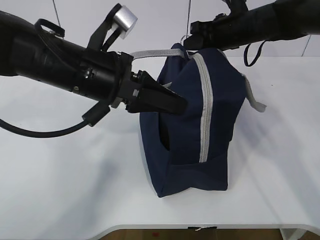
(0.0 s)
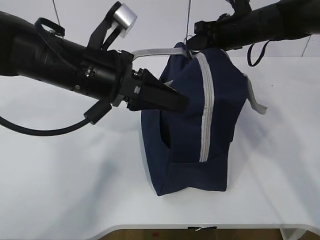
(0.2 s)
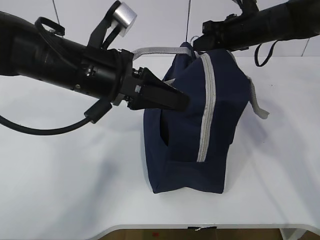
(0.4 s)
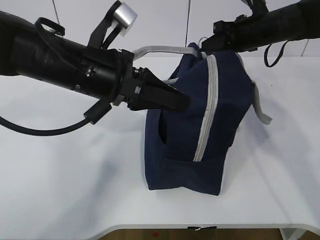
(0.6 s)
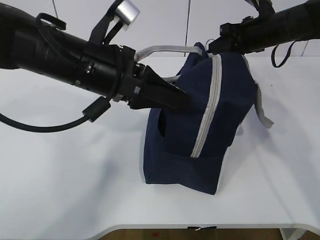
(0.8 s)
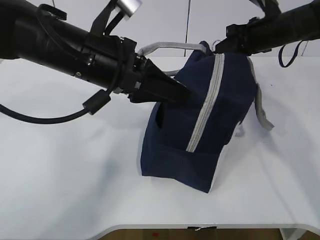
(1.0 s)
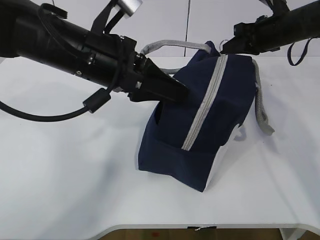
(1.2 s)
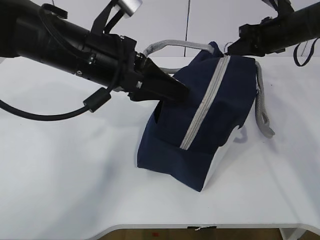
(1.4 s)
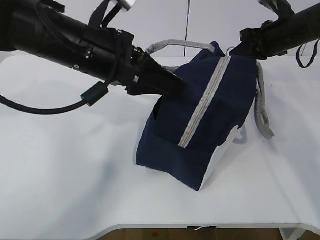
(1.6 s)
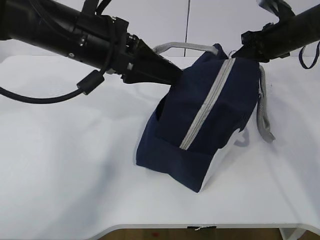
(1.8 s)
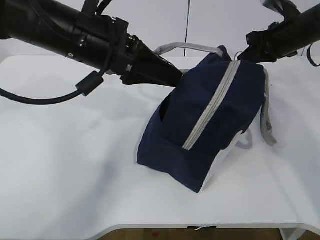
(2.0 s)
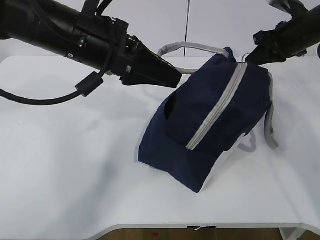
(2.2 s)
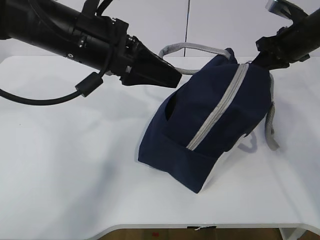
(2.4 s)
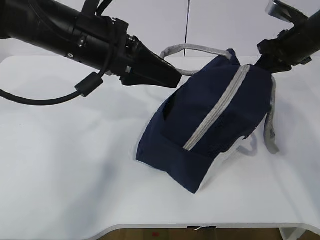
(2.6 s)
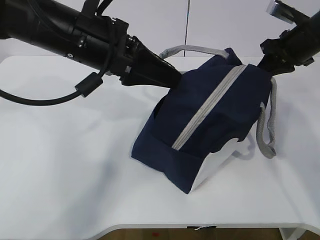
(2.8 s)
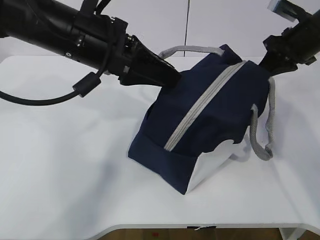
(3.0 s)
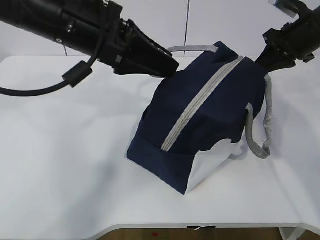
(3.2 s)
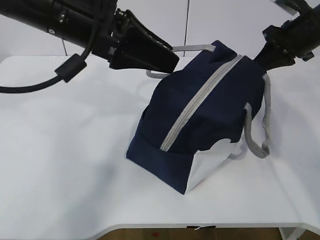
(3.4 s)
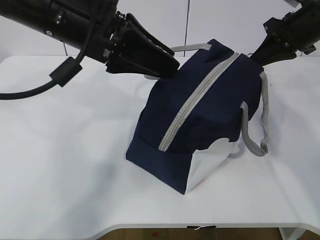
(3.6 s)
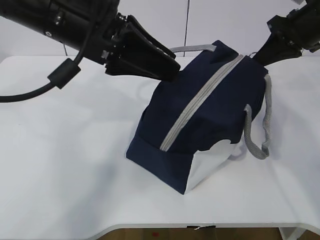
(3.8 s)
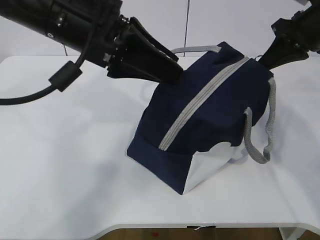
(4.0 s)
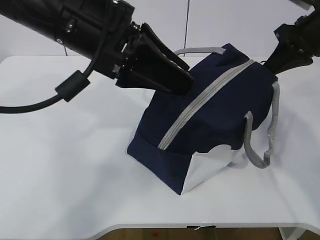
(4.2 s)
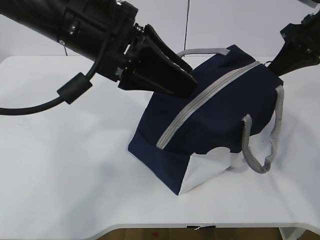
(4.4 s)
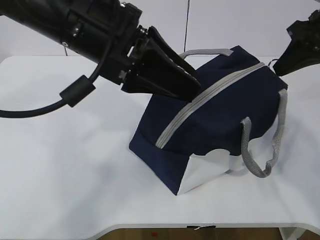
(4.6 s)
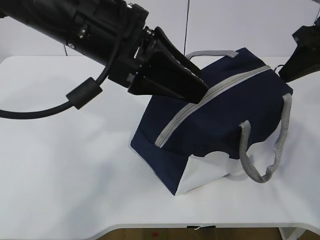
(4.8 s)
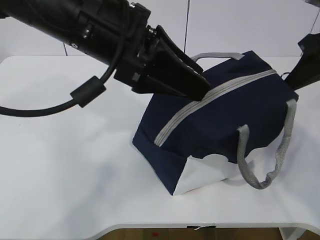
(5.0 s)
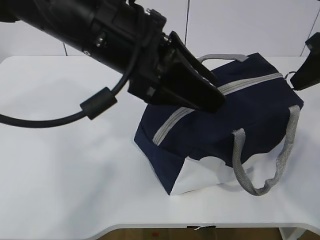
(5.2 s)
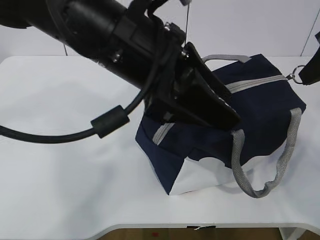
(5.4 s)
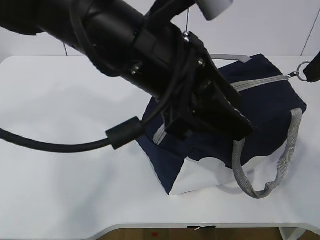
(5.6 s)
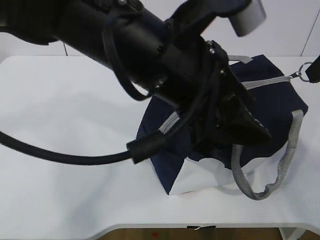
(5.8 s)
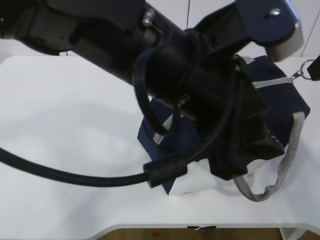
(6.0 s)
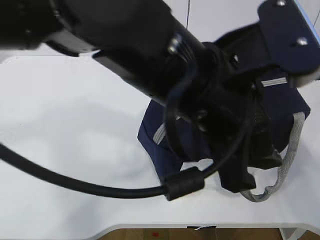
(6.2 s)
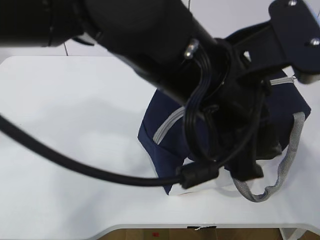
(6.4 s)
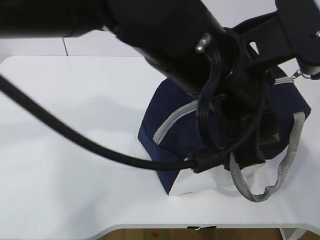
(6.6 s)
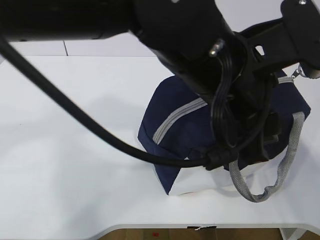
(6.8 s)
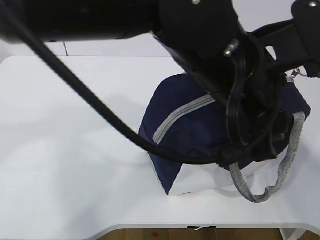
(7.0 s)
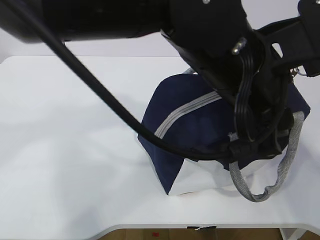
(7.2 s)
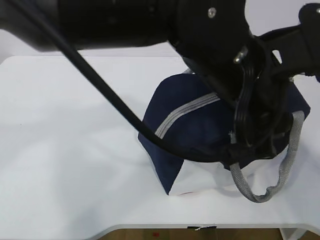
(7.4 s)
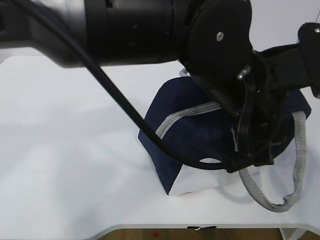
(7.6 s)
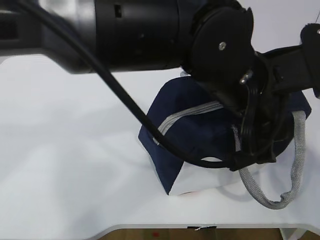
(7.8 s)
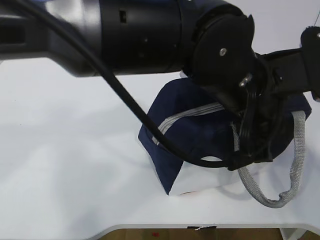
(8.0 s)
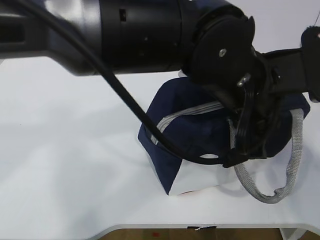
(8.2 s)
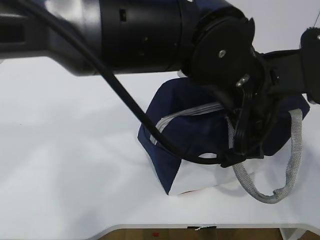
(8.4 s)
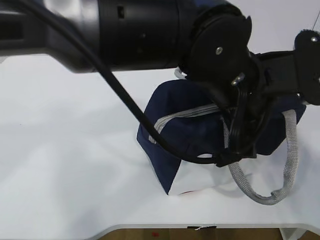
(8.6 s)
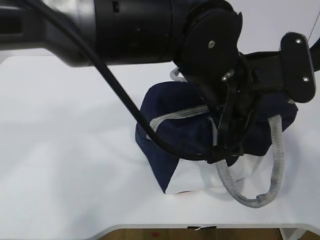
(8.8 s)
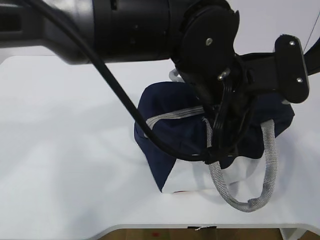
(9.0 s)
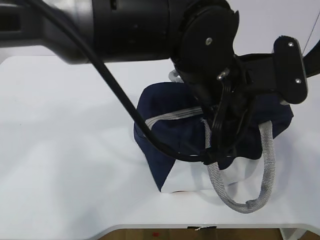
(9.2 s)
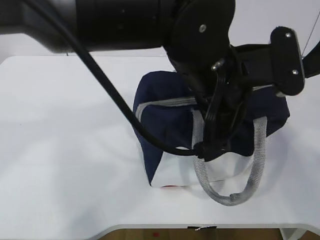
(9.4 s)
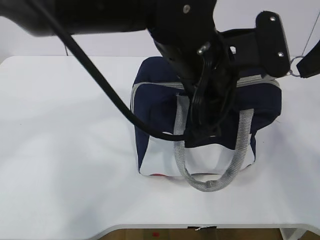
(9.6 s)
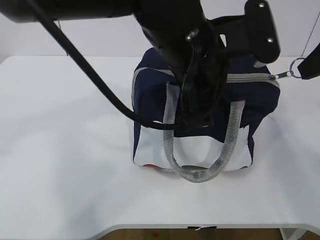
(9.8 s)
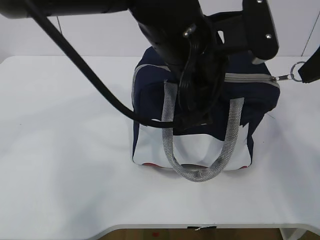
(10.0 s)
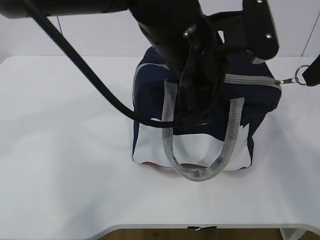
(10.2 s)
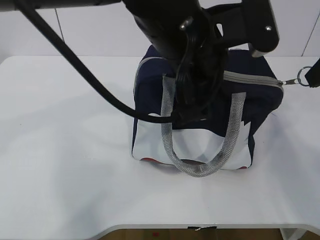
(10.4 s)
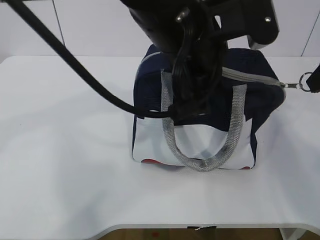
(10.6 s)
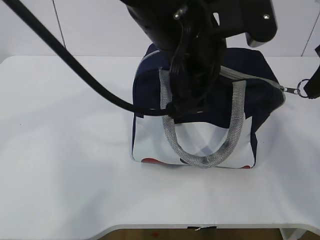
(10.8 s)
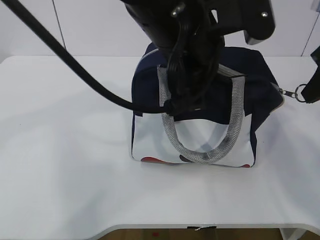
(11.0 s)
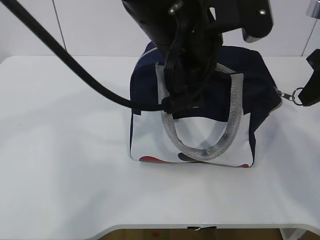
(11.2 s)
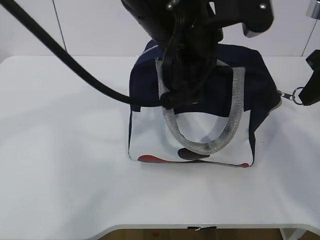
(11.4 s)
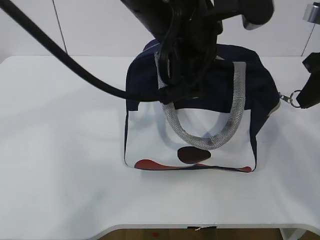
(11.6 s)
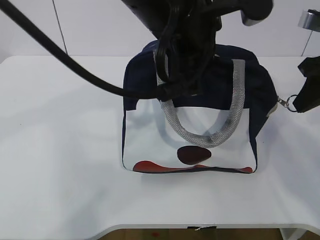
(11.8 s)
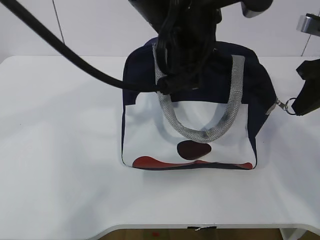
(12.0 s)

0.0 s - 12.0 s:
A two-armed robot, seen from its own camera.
0.0 s - 1.6 s: The right gripper travels to the right by approximately 10 cm; the left gripper opens its fingers.
1.6 s - 3.0 s: The right gripper ends up roughly 5 cm from where it was.
3.0 s - 4.4 s: The left gripper moves approximately 5 cm, while the right gripper heads backward, covering some 5 cm.
4.4 s - 6.0 s: The left gripper is displaced to the right and backward by roughly 15 cm; the right gripper goes approximately 10 cm backward.
6.0 s - 7.6 s: The left gripper goes about 5 cm to the right.
7.6 s - 9.0 s: The left gripper closes up.
9.0 s - 10.4 s: The left gripper ends up roughly 5 cm from where it was.
10.4 s - 12.0 s: The right gripper shifts roughly 5 cm downward.

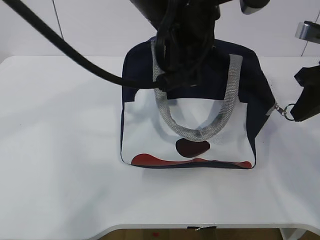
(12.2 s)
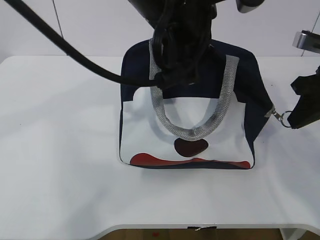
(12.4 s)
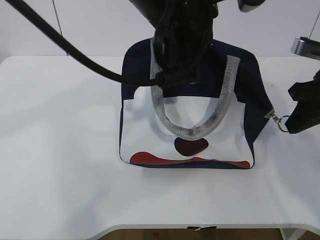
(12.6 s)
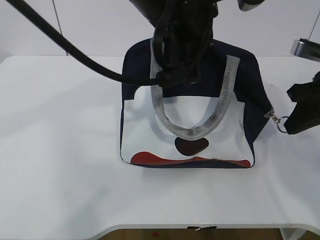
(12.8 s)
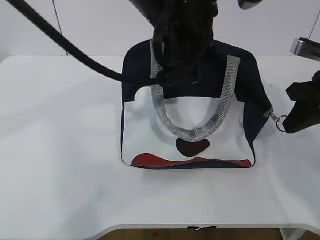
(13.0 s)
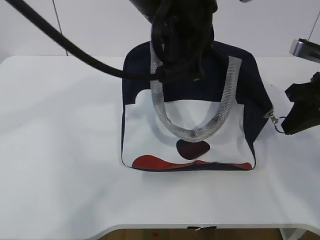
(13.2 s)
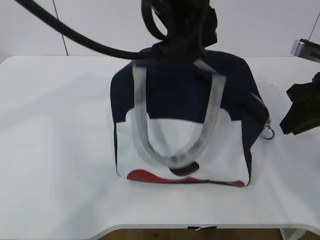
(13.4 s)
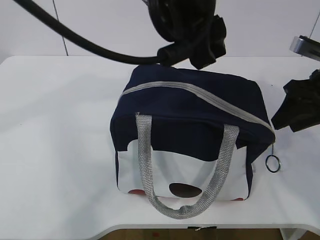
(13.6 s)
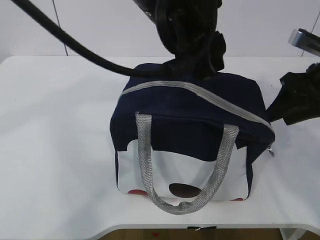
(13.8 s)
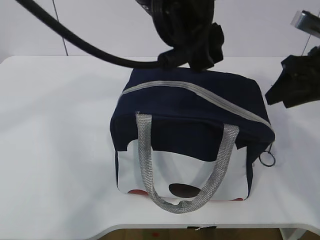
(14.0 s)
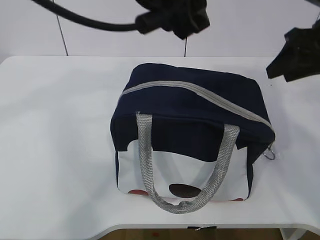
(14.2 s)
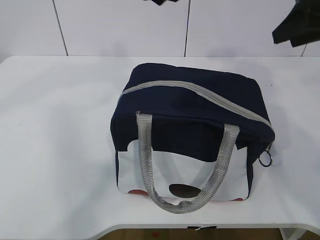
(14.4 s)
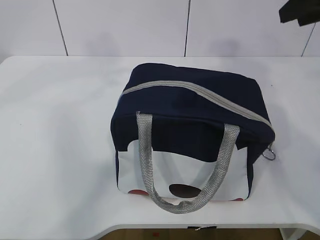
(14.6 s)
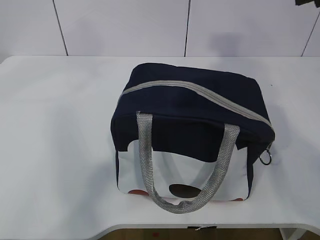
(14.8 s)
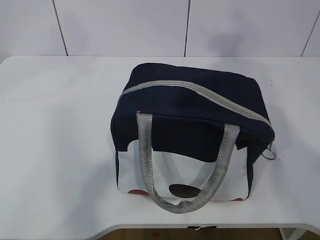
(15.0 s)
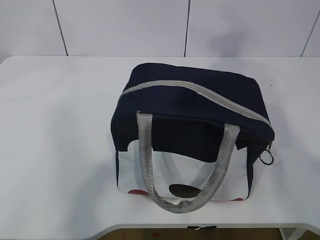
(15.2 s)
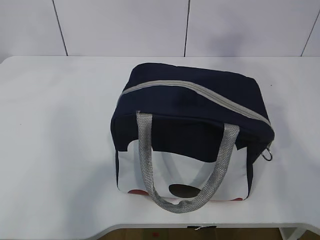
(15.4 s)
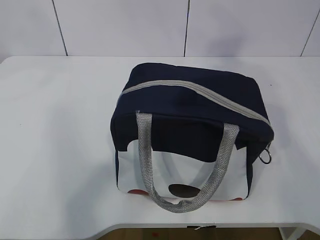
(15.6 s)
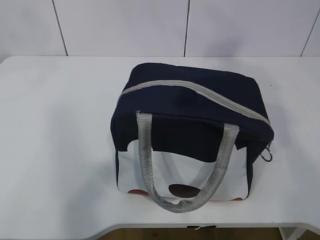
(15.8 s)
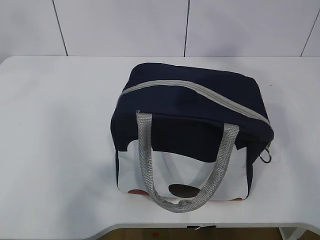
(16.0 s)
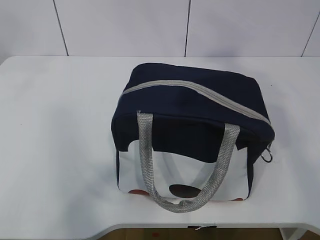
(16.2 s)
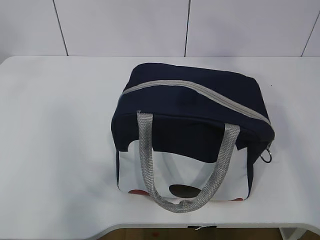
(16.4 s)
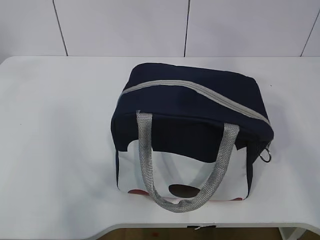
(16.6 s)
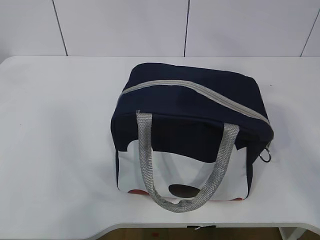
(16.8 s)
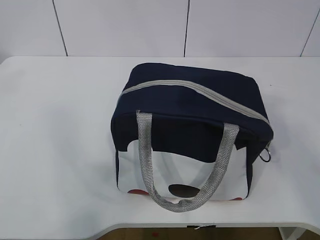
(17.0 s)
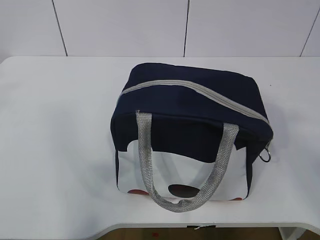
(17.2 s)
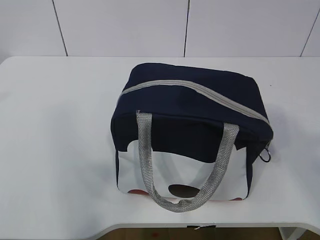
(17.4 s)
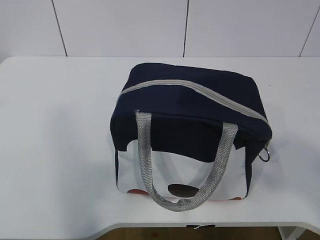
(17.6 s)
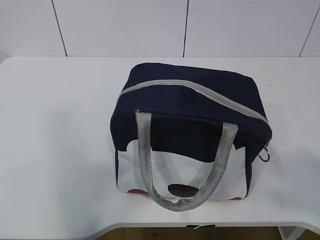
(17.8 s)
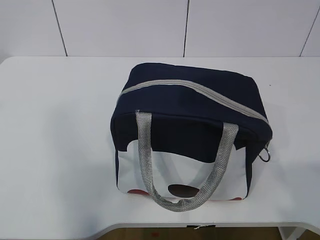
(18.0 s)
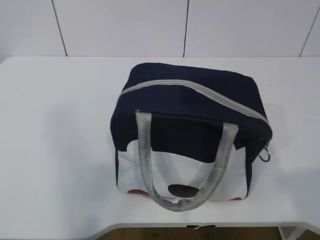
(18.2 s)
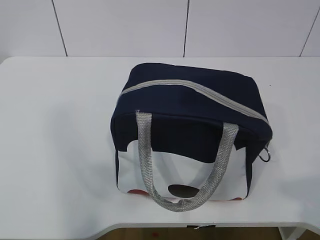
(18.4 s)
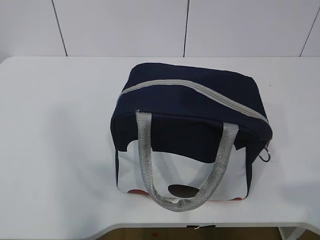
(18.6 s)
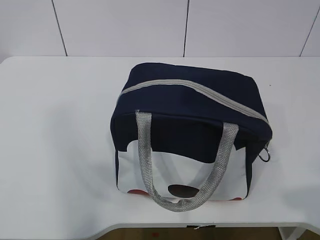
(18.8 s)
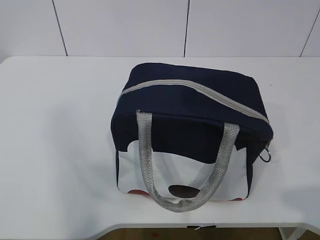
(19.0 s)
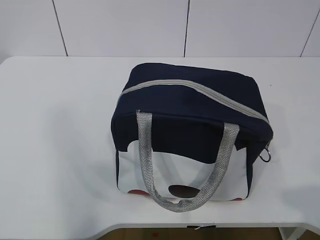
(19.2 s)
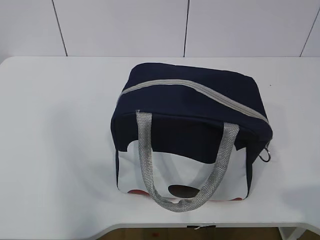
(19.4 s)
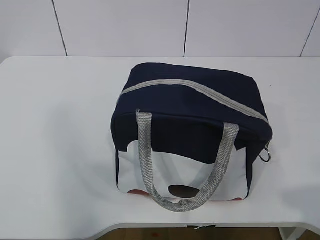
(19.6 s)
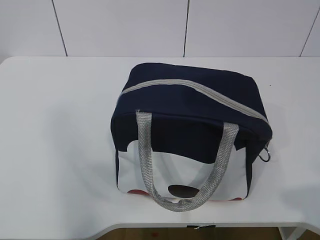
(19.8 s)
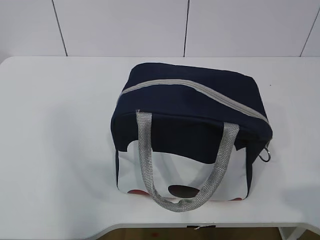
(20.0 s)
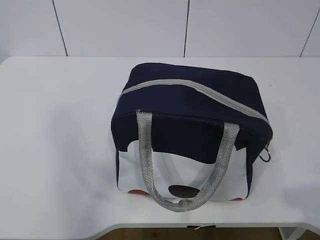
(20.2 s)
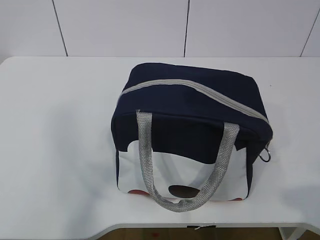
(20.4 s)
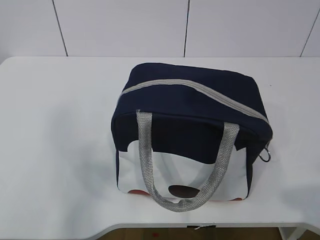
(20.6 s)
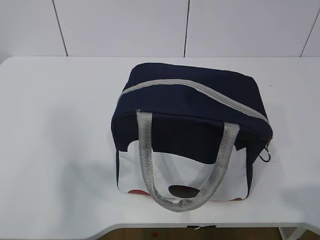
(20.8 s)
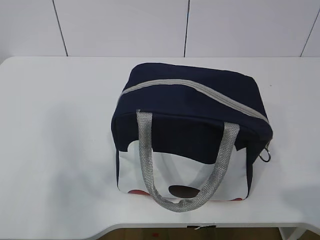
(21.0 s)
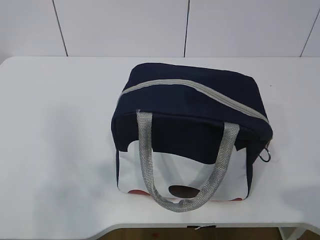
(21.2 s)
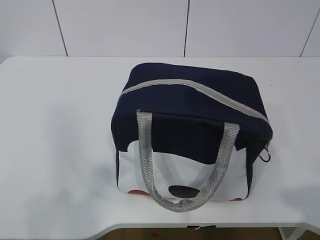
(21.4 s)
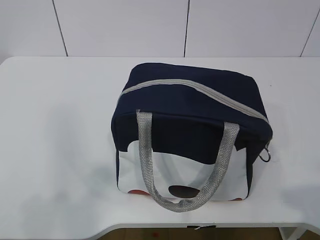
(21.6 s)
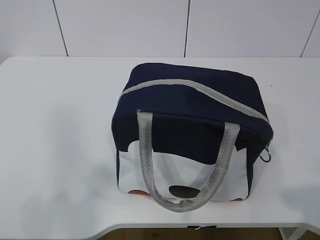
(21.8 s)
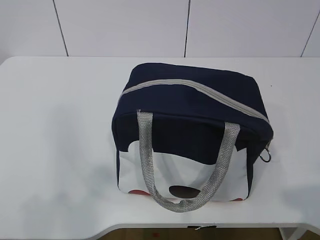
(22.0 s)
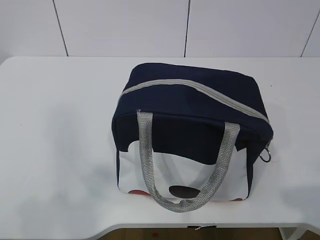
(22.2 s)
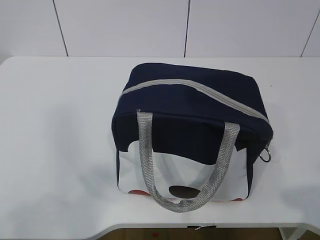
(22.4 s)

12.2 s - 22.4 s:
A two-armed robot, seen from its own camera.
12.2 s - 13.6 s: The left gripper opens up. The right gripper opens up.
13.6 s - 15.2 s: The left gripper heads to the left and upward, covering approximately 20 cm; the right gripper moves upward, approximately 20 cm.
15.2 s - 16.6 s: The right gripper goes approximately 15 cm backward and upward.
16.6 s - 18.0 s: The left gripper moves backward and downward, about 10 cm. The right gripper travels backward and downward by roughly 20 cm.
19.4 s - 21.0 s: The left gripper shifts some 15 cm downward and backward.
